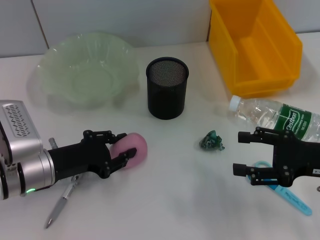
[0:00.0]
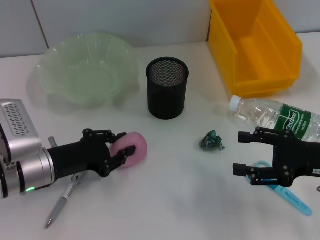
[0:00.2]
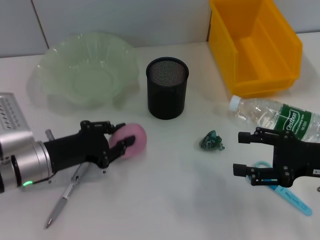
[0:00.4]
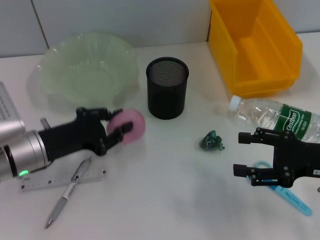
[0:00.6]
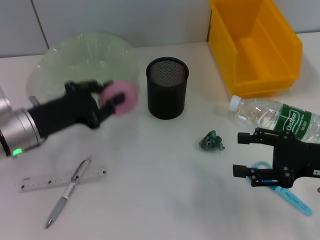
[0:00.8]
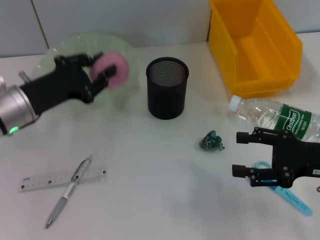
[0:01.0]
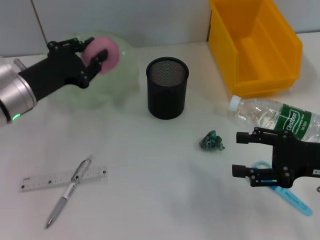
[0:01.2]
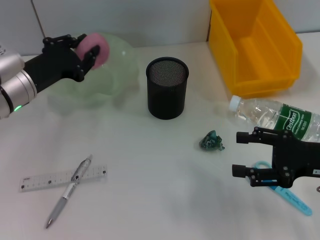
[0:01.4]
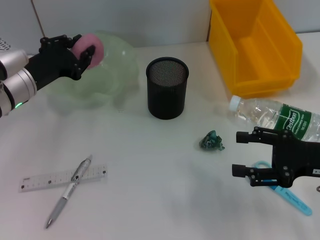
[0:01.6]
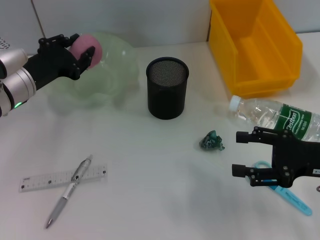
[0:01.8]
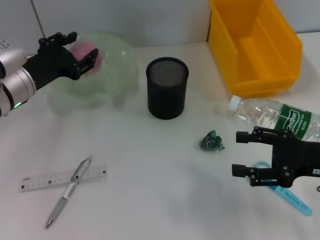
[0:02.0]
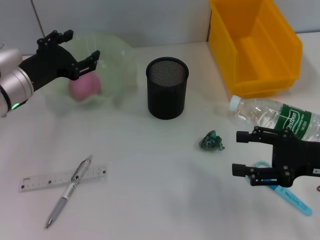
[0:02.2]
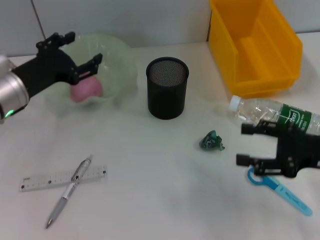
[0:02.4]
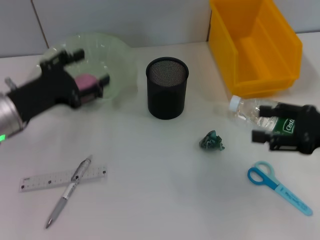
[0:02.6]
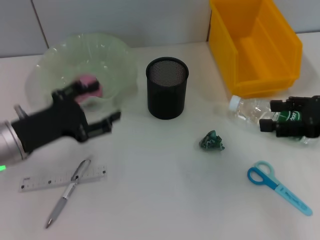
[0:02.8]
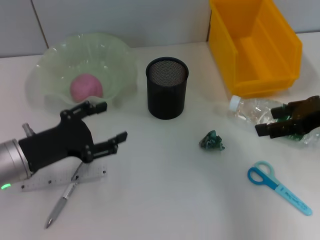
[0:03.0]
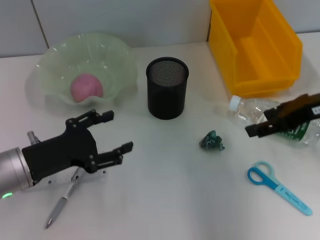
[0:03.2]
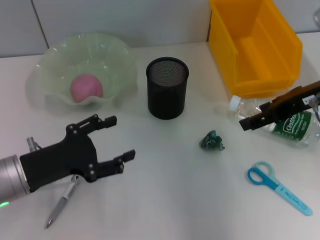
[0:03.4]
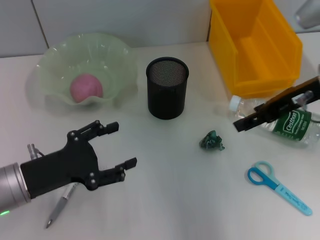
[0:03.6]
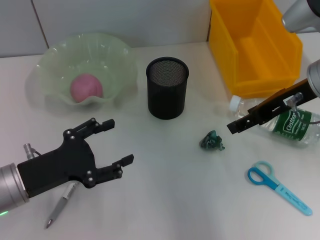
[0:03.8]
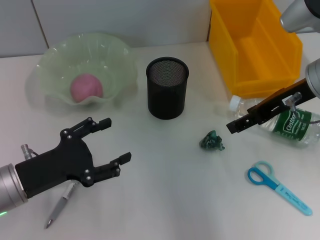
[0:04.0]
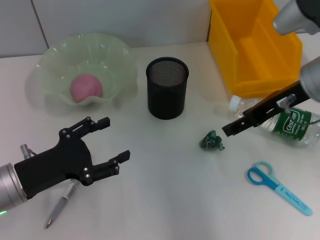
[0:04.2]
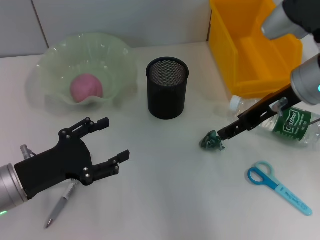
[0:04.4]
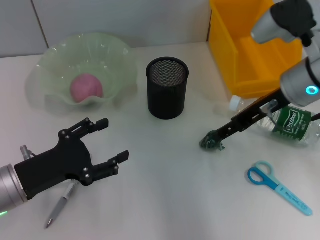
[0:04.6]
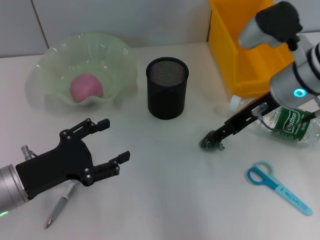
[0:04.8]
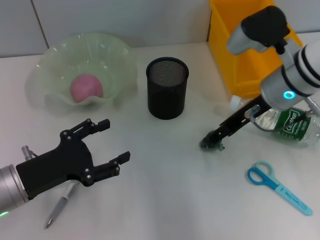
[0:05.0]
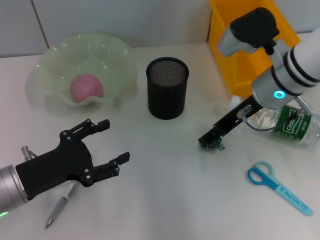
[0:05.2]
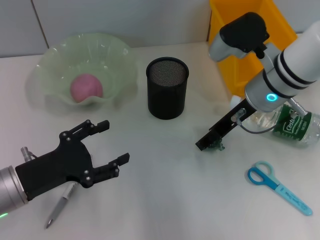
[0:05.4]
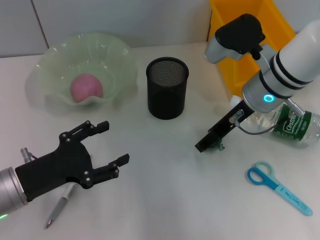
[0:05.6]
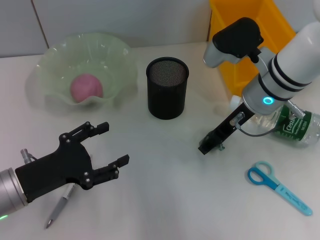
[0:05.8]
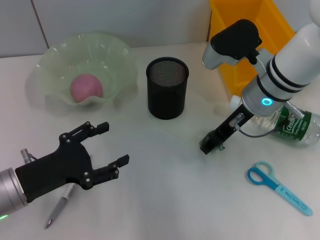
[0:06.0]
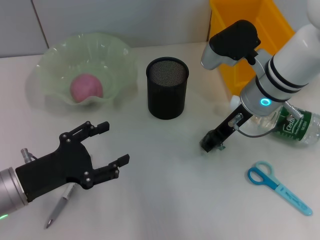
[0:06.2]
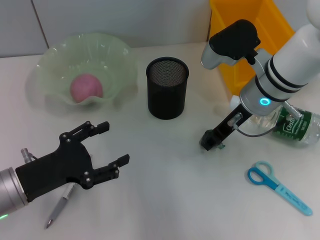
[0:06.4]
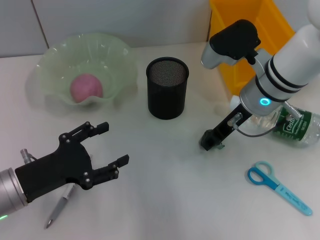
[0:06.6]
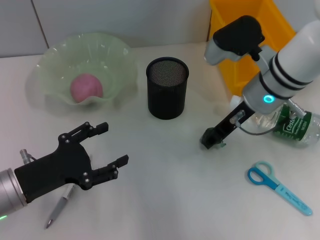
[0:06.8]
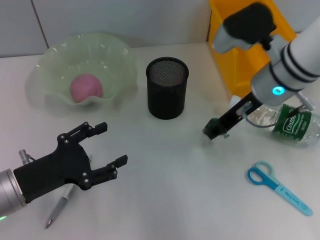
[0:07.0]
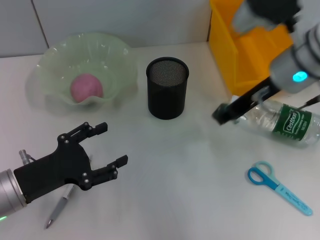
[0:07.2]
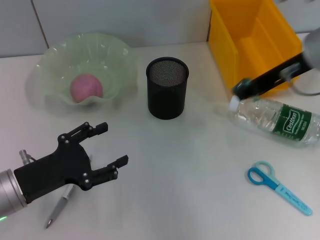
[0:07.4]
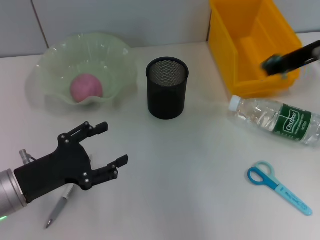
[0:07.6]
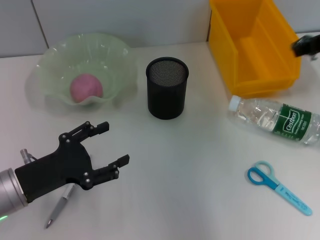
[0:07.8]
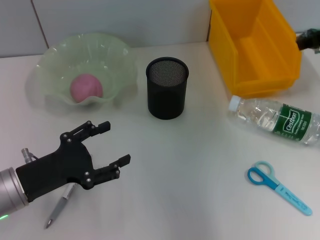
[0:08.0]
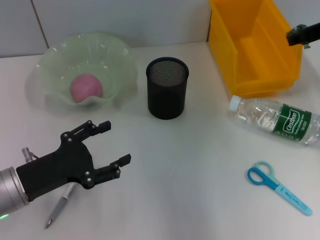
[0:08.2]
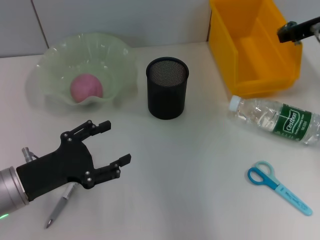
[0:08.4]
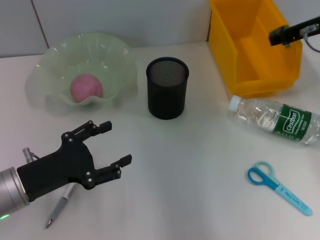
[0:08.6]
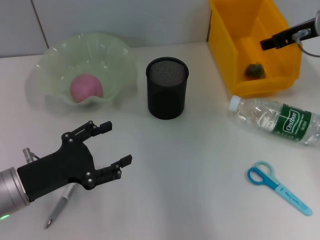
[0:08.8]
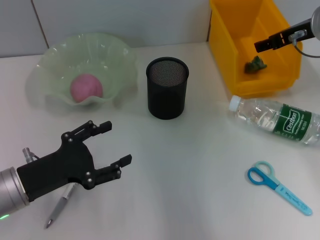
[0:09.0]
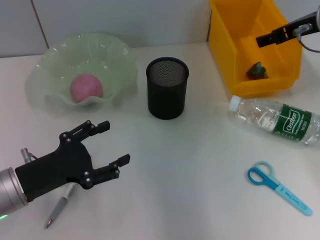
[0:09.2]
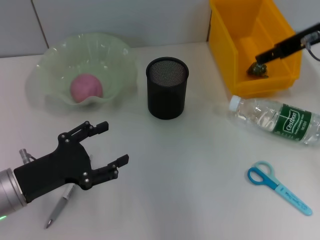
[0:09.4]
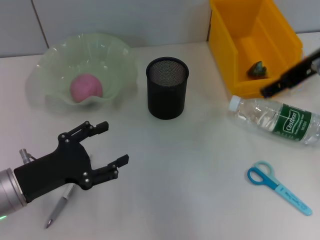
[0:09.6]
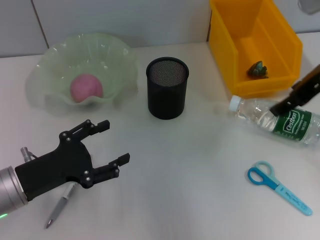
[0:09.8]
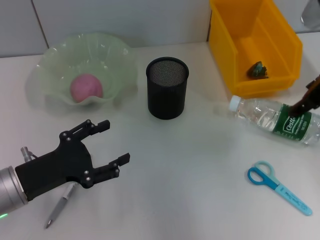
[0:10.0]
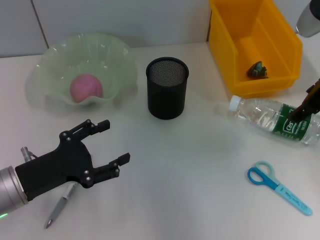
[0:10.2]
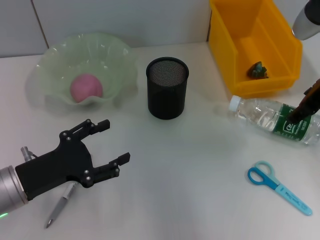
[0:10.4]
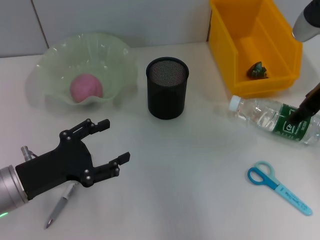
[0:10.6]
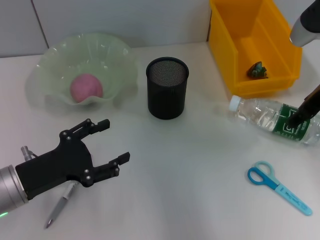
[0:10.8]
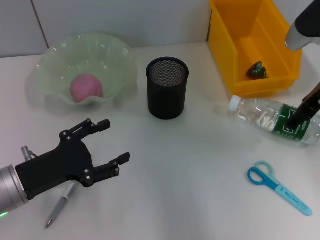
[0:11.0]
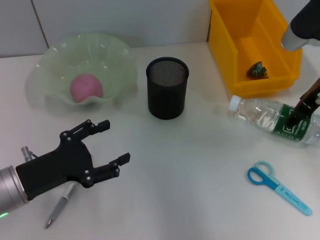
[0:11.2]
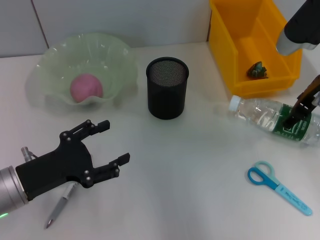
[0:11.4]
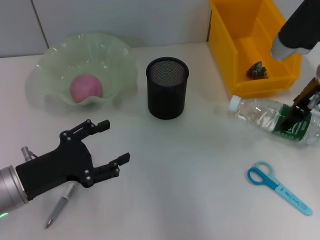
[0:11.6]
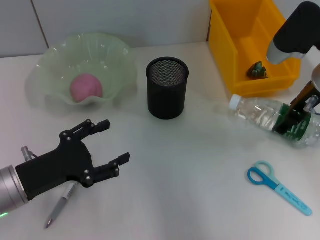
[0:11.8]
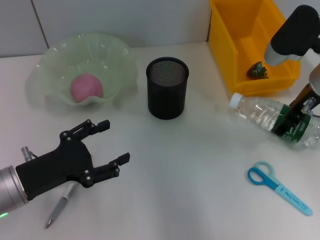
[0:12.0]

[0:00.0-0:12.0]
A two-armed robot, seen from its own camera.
Step, 0:00.2 to 0:02.2: Place the peach into the fruit bowl with the left hand.
Step, 0:02.4 to 0:06.6: Grab the plastic with the right hand.
Step, 0:06.8 to 0:09.0: Place the plastic into the trash can with the right hand.
0:00.0 to 0:01.6: The left gripper travels forward and upward by some 10 cm.
0:01.6 to 0:03.0: The left gripper is displaced backward by about 10 cm, and opens its fingers; the right gripper goes approximately 10 cm upward and forward.
0:03.0 to 0:04.4: The right gripper shifts roughly 10 cm to the left.
0:04.4 to 0:06.0: The right gripper travels to the left by approximately 5 cm.
0:06.0 to 0:07.6: The right gripper shifts roughly 15 cm upward and to the right, and closes up.
0:07.6 to 0:09.0: The right gripper shifts approximately 10 cm forward and downward.
0:09.0 to 0:10.4: The right gripper goes some 5 cm backward.
0:10.4 to 0:12.0: The right gripper moves downward, approximately 5 cm.

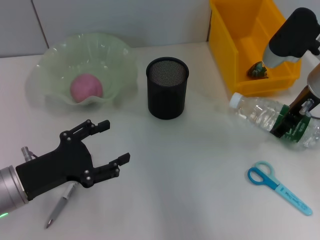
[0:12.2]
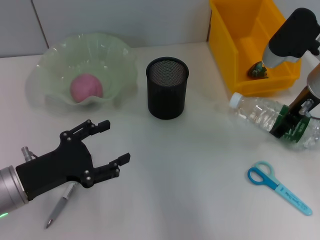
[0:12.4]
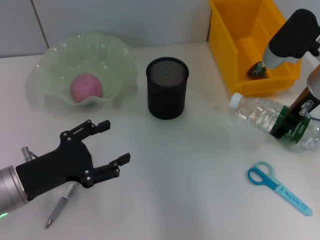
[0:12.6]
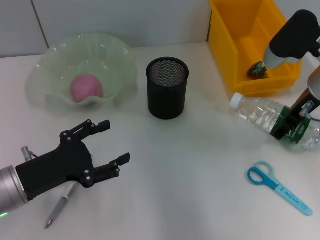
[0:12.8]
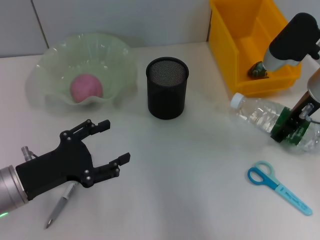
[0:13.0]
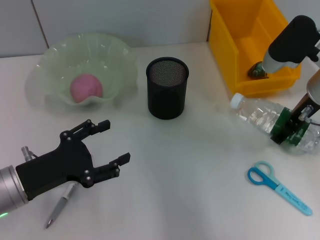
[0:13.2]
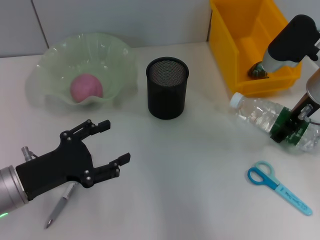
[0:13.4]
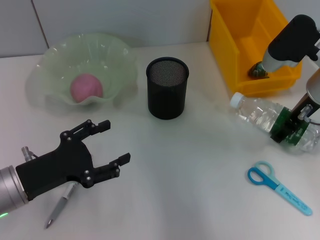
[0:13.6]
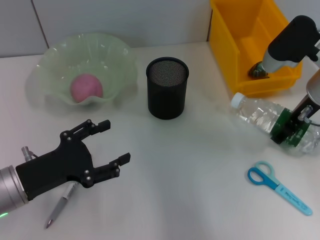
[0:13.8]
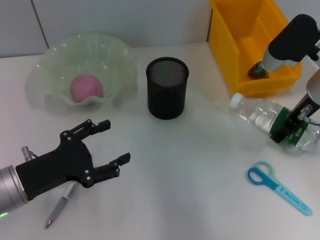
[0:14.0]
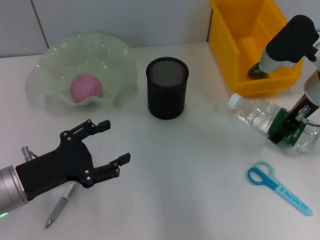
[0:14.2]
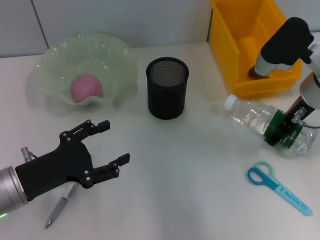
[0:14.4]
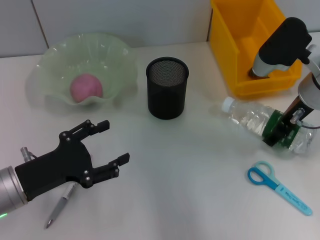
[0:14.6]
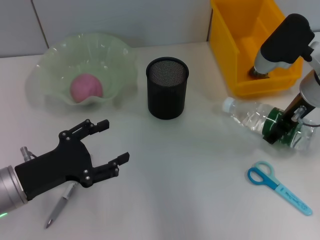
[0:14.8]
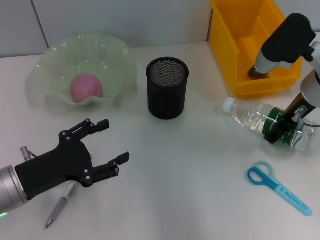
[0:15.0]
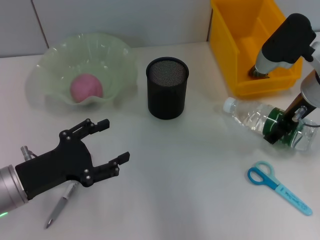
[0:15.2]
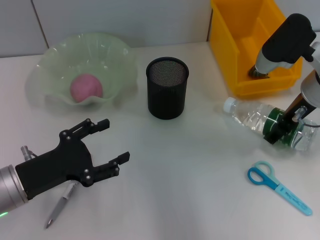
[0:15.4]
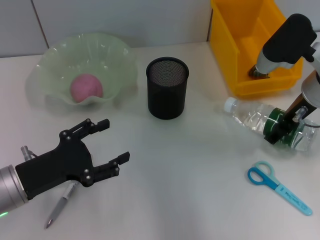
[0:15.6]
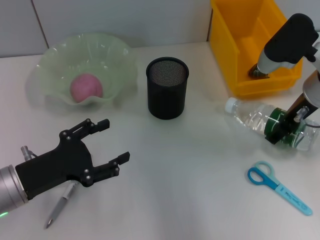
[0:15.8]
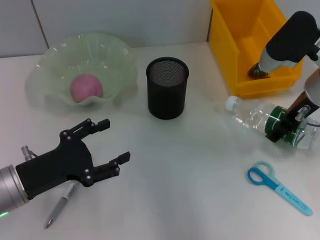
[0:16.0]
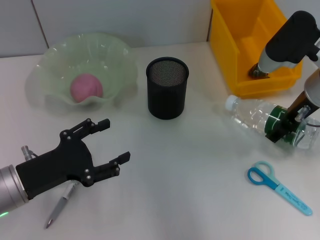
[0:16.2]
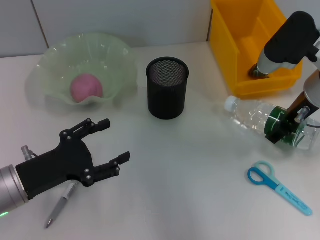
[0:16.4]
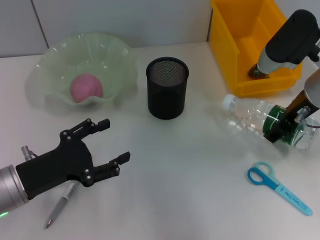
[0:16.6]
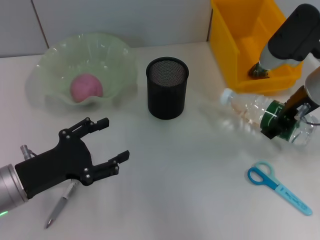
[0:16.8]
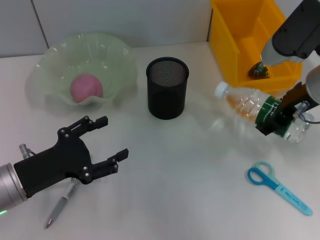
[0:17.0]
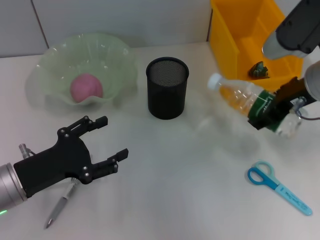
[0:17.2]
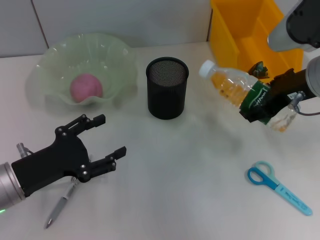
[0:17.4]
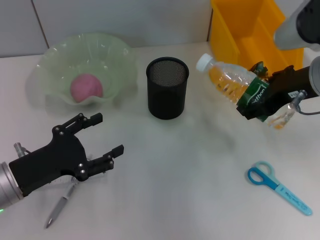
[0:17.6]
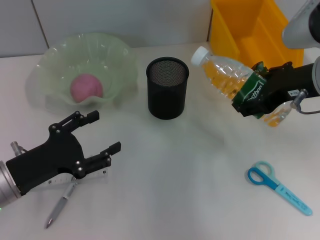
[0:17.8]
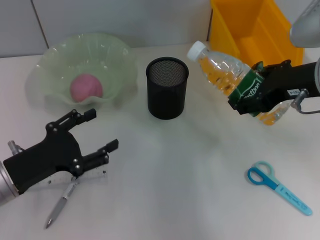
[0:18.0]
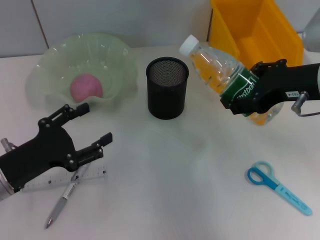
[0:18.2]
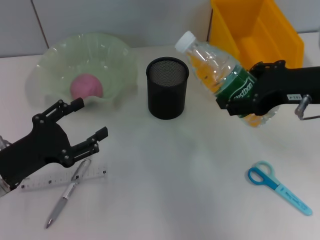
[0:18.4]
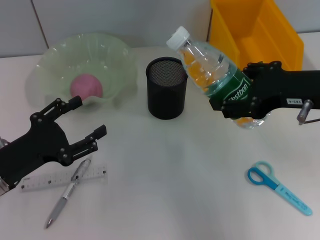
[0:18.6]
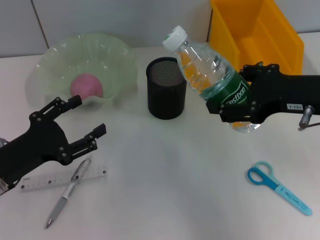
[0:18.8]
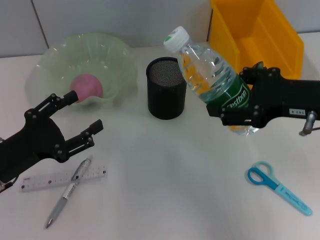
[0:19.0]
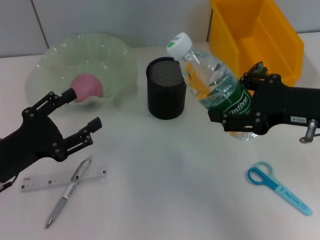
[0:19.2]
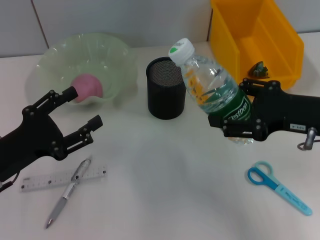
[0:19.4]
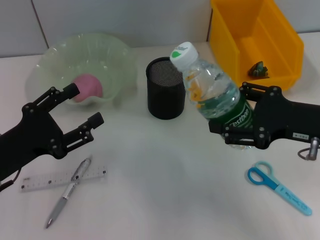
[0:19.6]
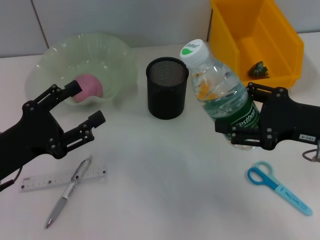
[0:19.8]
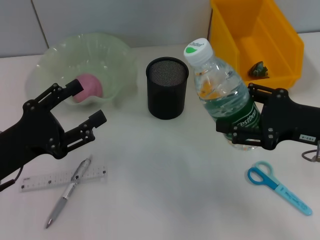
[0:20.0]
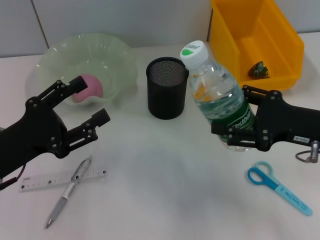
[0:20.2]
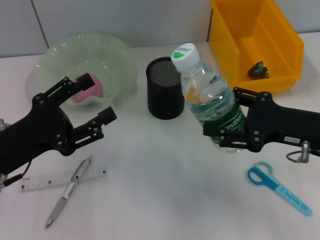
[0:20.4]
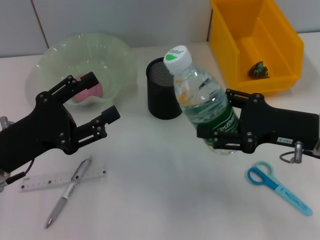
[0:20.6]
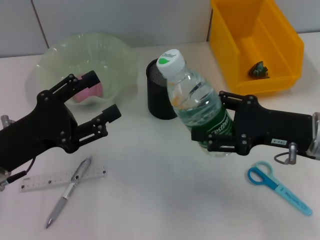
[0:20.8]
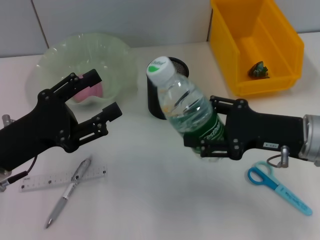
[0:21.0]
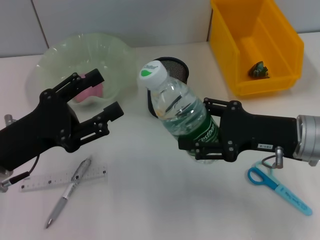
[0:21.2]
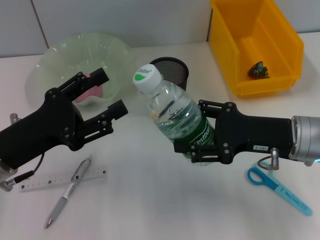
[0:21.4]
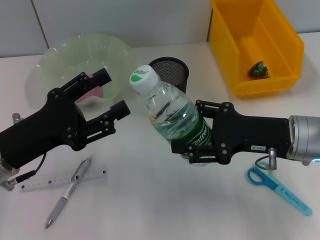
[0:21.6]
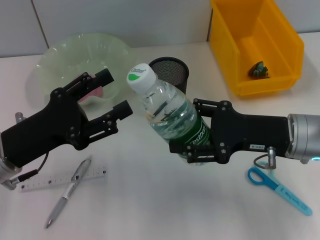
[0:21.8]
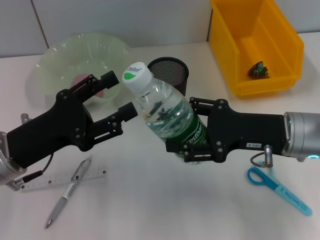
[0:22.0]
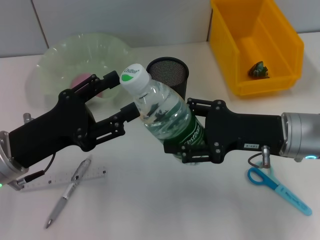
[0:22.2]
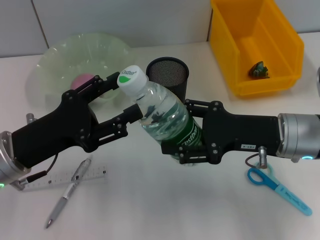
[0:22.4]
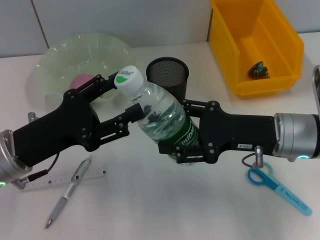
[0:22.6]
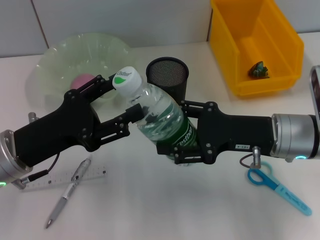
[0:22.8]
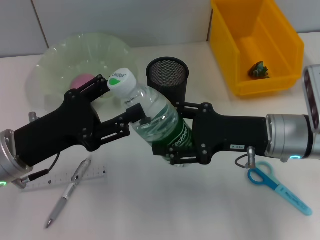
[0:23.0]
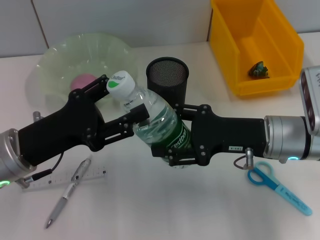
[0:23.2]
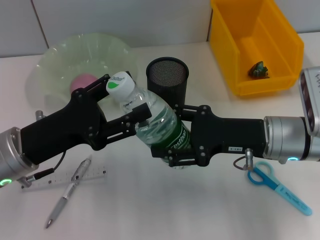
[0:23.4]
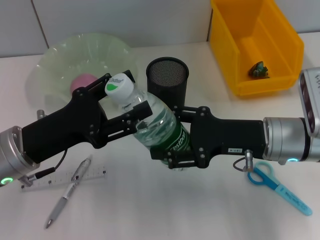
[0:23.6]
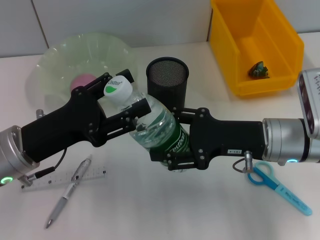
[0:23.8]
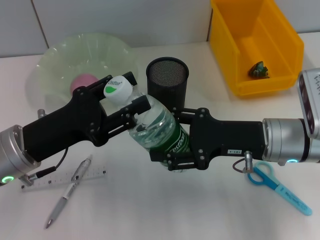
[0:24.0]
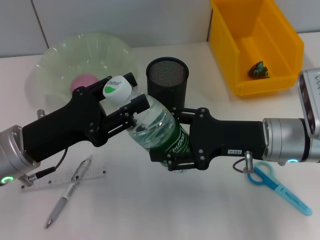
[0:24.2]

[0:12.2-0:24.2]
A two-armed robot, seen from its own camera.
0:12.2 to 0:13.8: Both grippers stay put.
0:13.8 to 0:16.6: There are only small adjustments of the grippers.
0:16.6 to 0:18.2: The right gripper moves backward, about 5 cm.
0:18.2 to 0:19.8: The right gripper is displaced downward by some 10 cm.
0:19.8 to 0:21.2: The right gripper shifts by approximately 5 cm.
0:21.2 to 0:22.6: The grippers move only a little.
0:22.6 to 0:24.2: Both grippers stay put.
